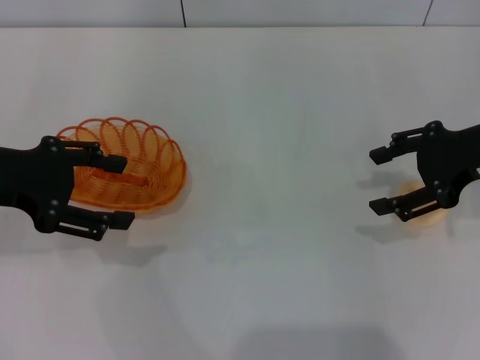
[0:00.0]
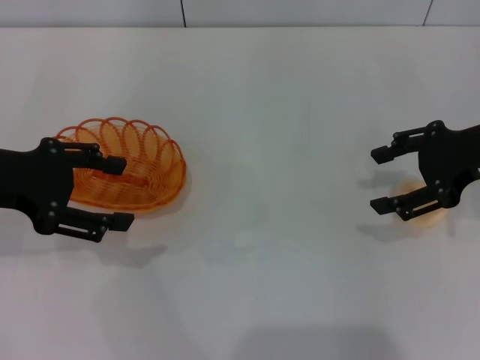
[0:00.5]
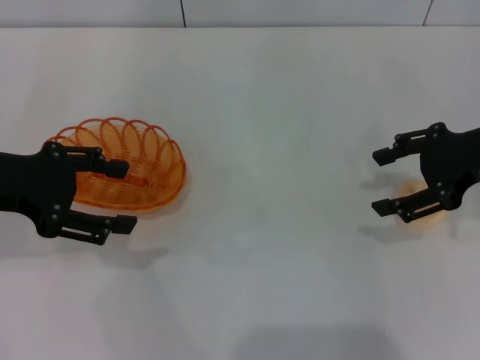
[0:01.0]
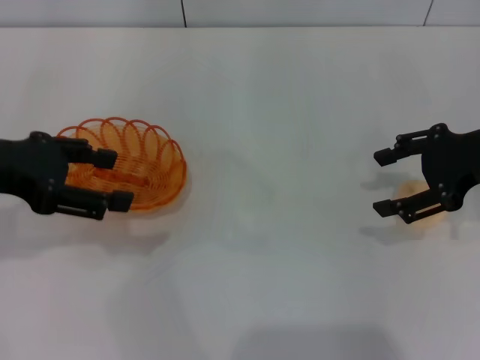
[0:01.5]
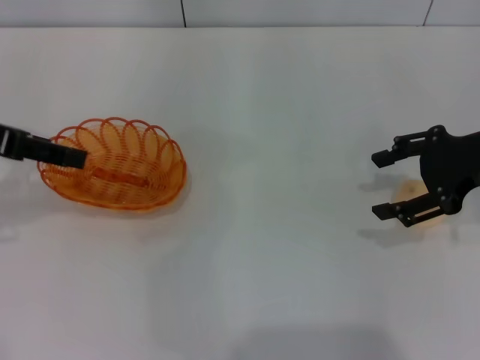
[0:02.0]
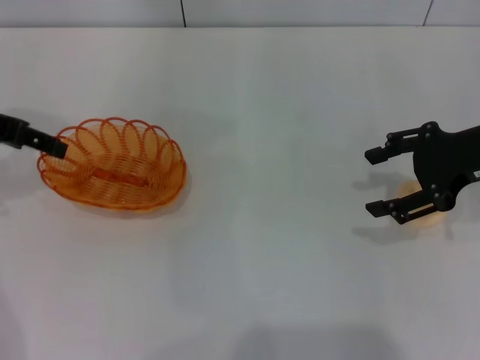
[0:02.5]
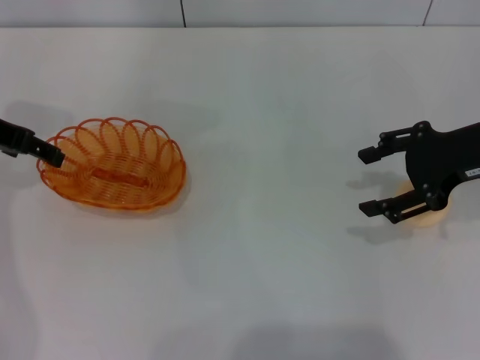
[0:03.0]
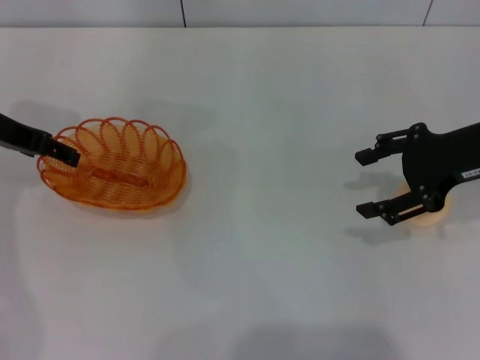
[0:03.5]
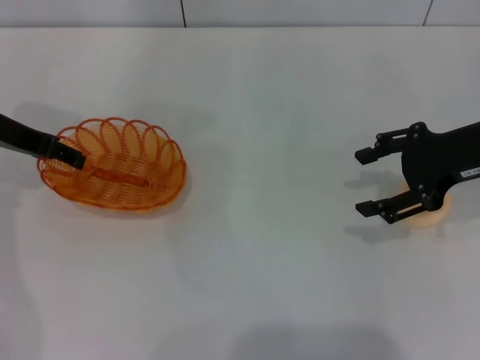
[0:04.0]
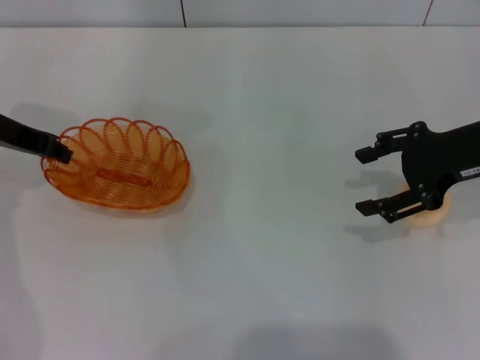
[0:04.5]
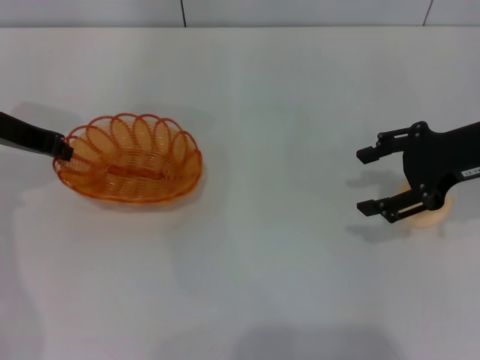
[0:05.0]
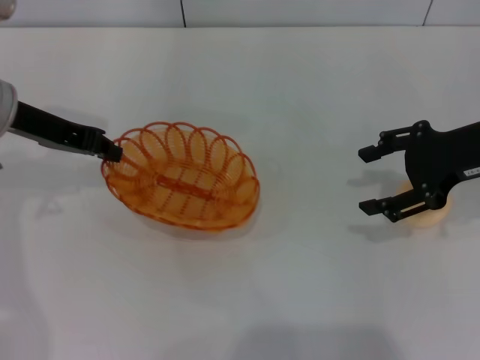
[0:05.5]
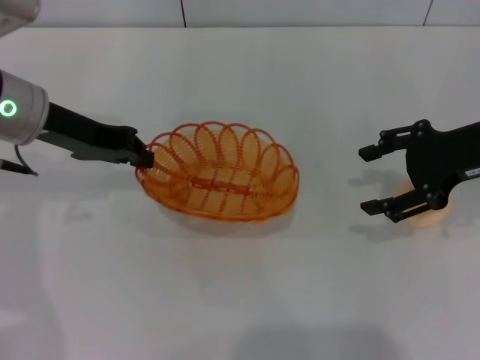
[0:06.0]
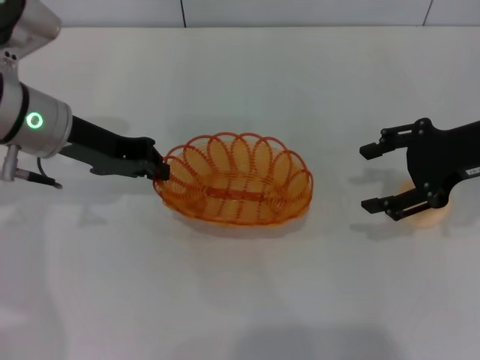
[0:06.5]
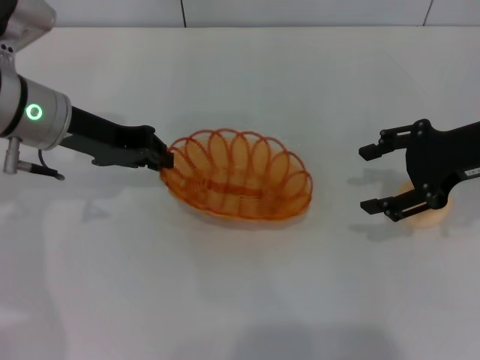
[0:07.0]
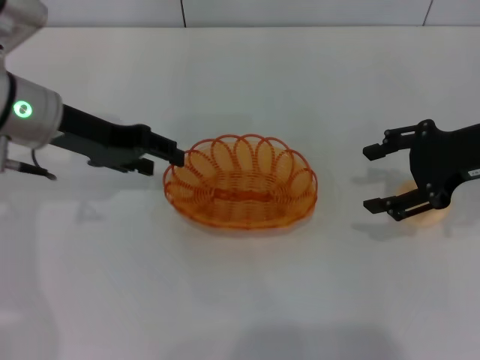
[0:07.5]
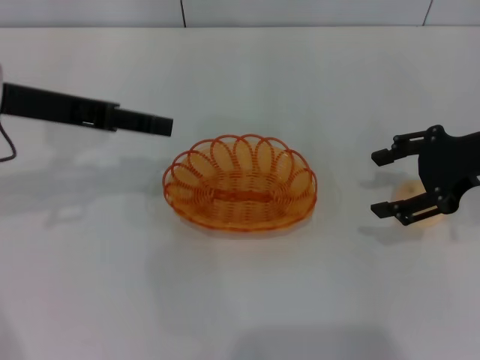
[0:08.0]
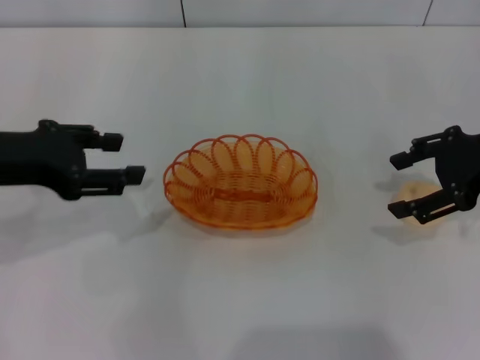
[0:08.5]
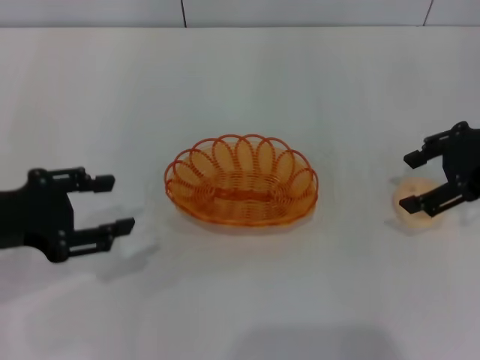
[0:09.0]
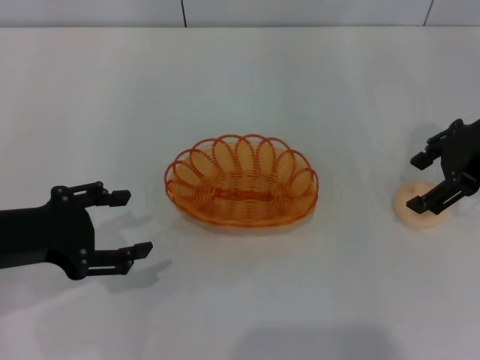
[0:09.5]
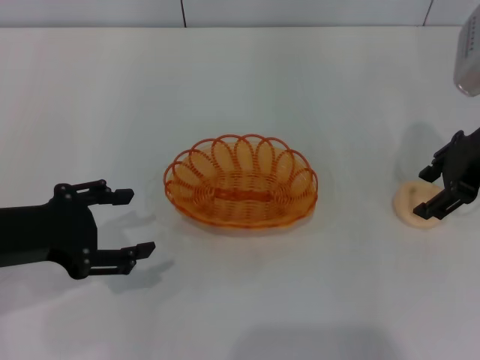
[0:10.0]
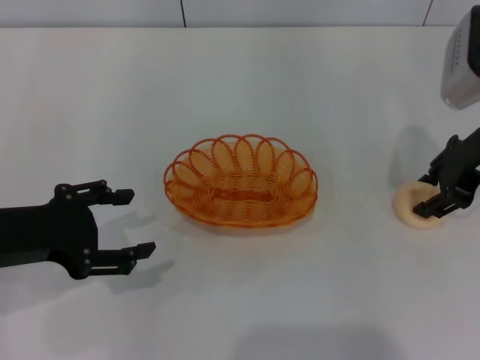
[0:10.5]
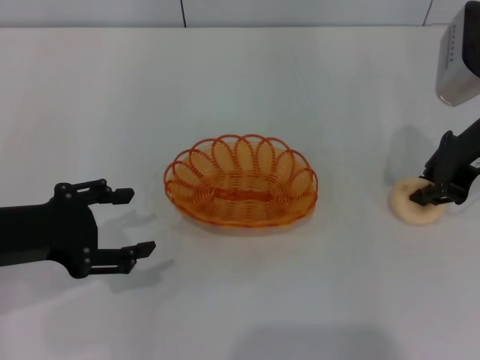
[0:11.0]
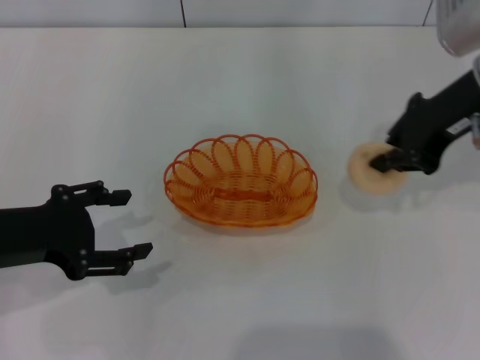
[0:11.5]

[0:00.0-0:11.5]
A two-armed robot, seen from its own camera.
Step, 0:00.0 to 0:05.5: Pick up the basket with the left gripper.
Step, 0:06.0 to 0:07.5: Place the basket in the center of view with the left gripper.
Step, 0:08.0 to 0:11.5: Pick up the egg yolk pastry with the right gripper.
0:00.0 to 0:02.0: The left gripper goes roughly 5 cm upward.
0:02.0 to 0:04.0: The left gripper shifts roughly 10 cm downward and forward.
0:04.0 to 0:06.0: The left gripper moves to the right, some 5 cm, and closes its fingers.
0:06.0 to 0:07.5: The left gripper opens up.
0:07.5 to 0:09.5: The left gripper shifts roughly 15 cm backward and to the left, and opens.
0:09.5 to 0:11.5: The right gripper is displaced to the left by roughly 5 cm, and closes its fingers.

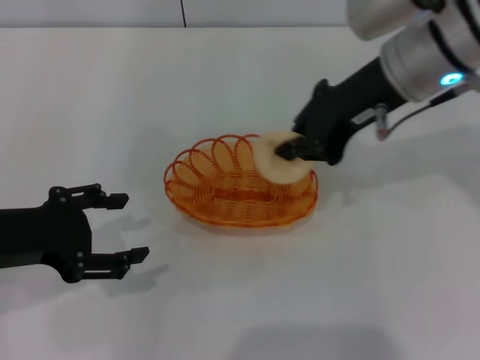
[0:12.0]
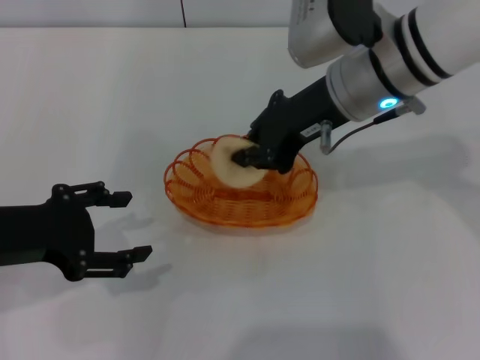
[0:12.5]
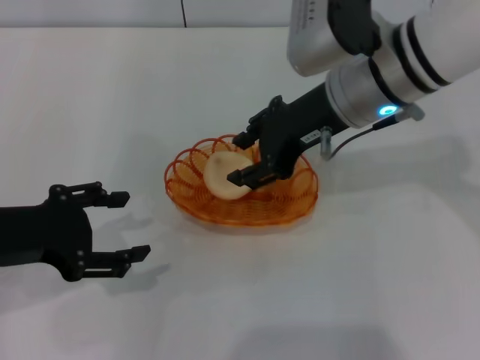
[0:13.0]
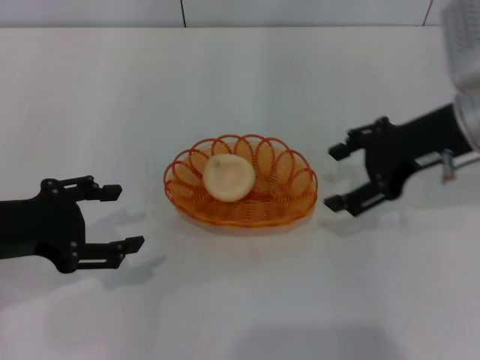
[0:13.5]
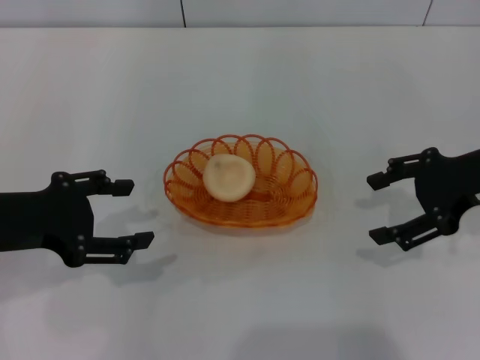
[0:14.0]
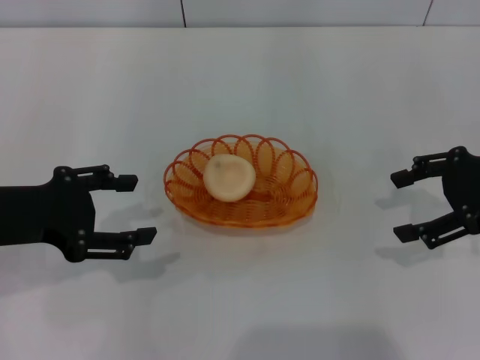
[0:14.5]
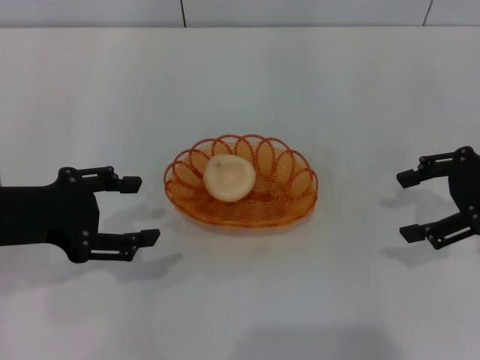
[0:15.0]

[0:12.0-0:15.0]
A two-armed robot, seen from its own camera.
Step, 0:12.0 to 0:13.5: Place the egg yolk pastry into the basket with the right gripper.
0:12.0 to 0:13.5: The right gripper is displaced to the right and downward by roughly 10 cm, and opens.
0:13.5 to 0:15.0: The right gripper shifts about 10 cm to the right.
